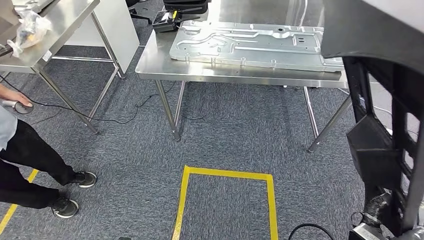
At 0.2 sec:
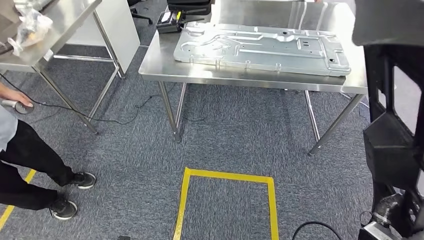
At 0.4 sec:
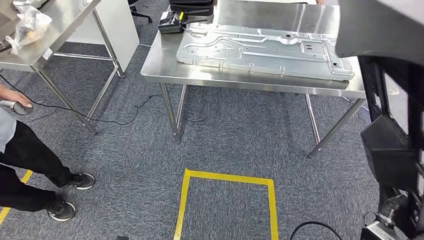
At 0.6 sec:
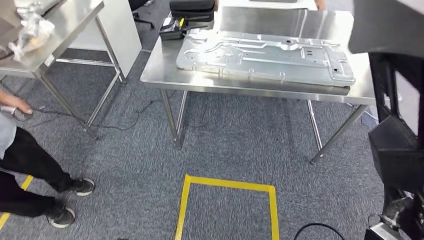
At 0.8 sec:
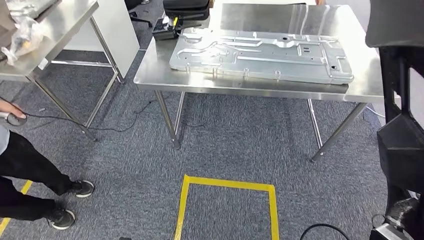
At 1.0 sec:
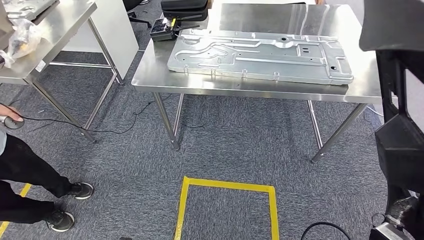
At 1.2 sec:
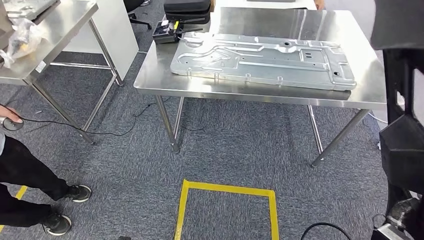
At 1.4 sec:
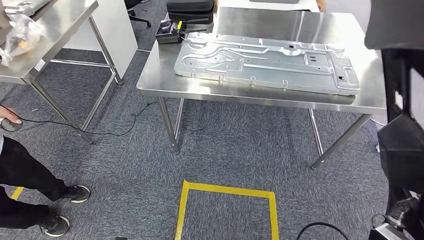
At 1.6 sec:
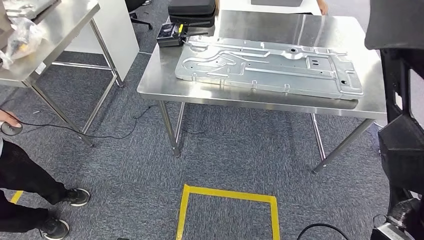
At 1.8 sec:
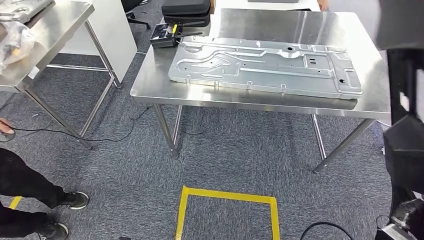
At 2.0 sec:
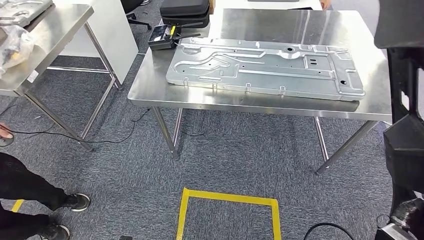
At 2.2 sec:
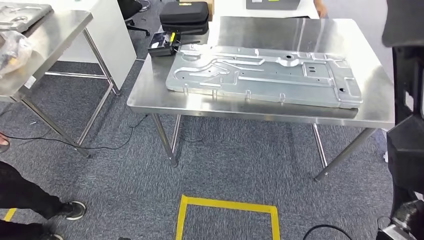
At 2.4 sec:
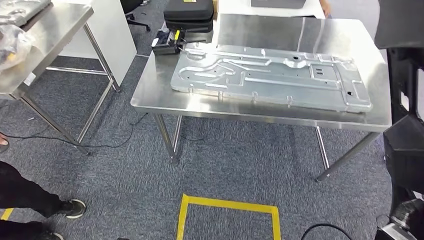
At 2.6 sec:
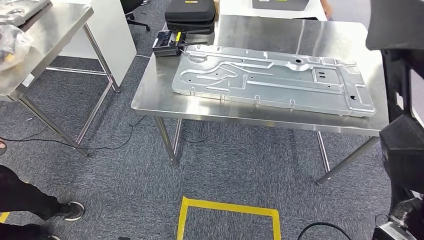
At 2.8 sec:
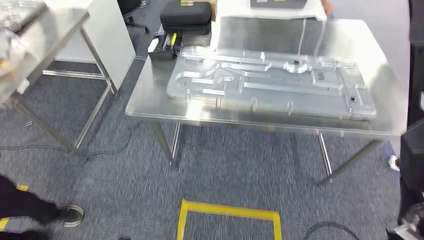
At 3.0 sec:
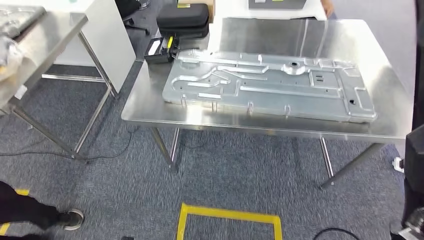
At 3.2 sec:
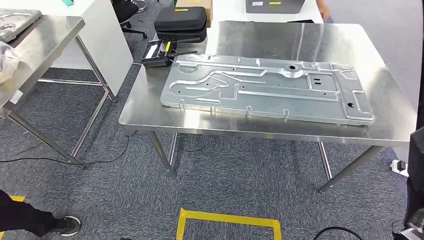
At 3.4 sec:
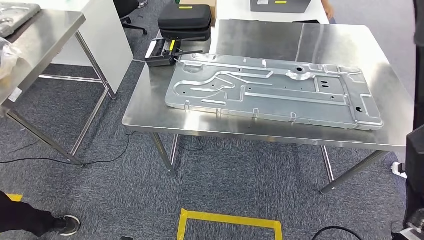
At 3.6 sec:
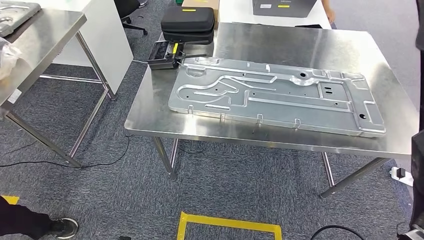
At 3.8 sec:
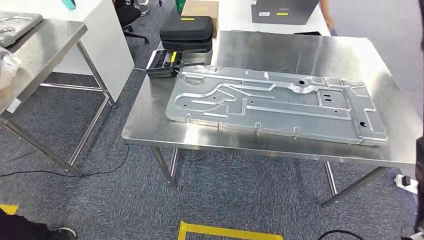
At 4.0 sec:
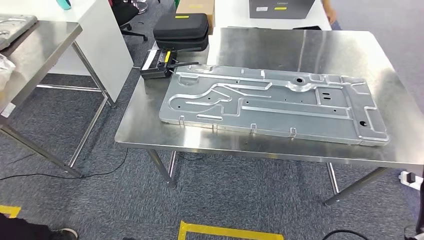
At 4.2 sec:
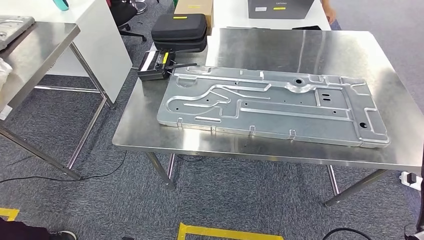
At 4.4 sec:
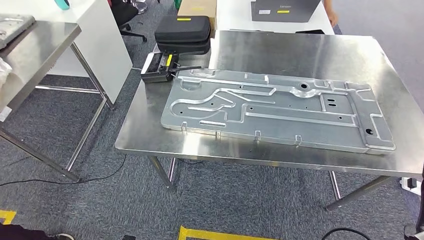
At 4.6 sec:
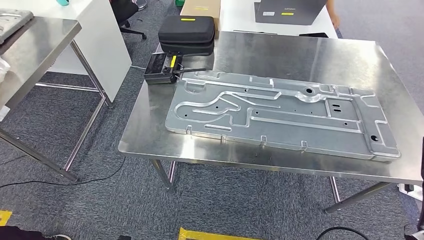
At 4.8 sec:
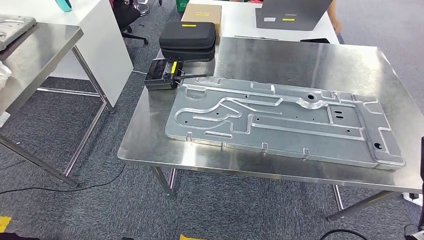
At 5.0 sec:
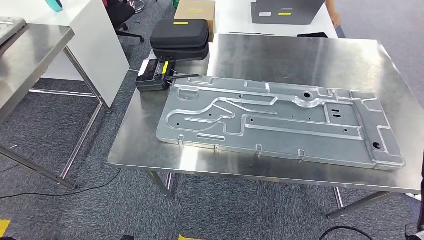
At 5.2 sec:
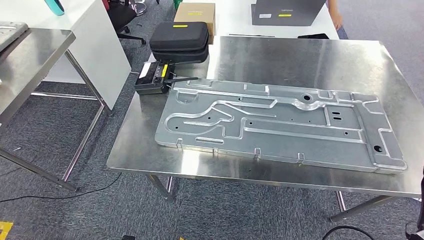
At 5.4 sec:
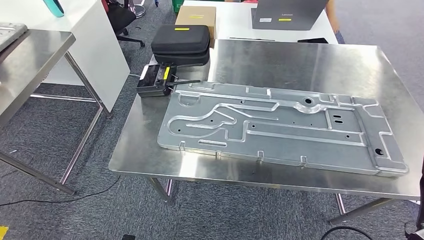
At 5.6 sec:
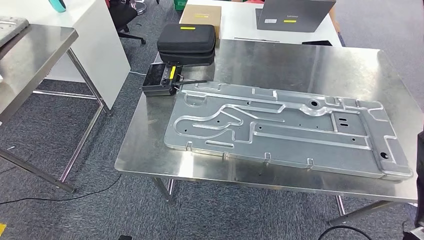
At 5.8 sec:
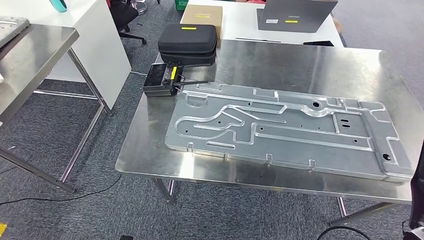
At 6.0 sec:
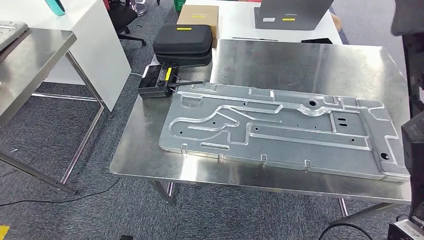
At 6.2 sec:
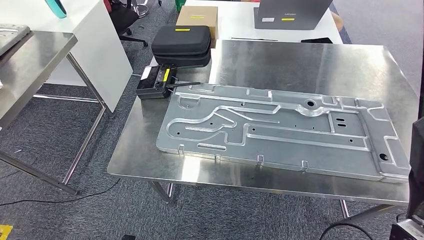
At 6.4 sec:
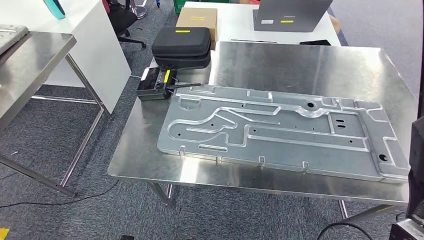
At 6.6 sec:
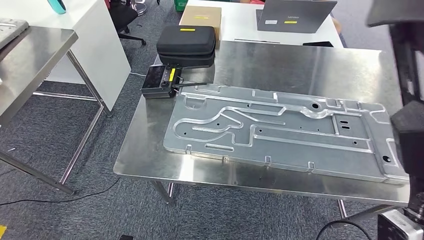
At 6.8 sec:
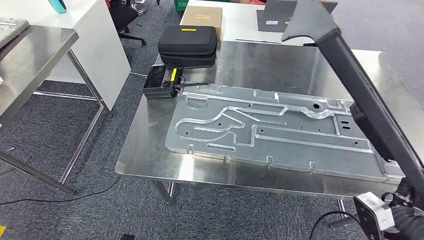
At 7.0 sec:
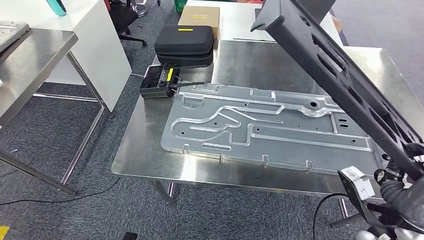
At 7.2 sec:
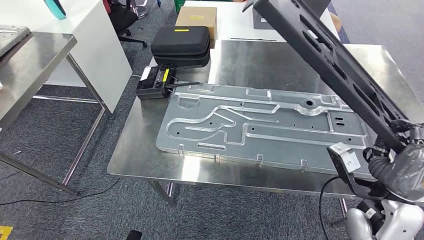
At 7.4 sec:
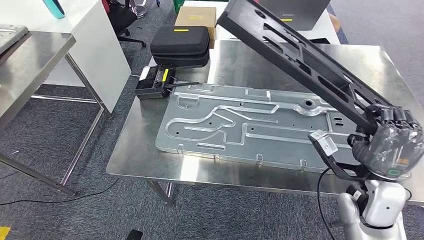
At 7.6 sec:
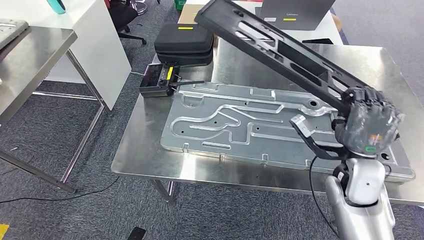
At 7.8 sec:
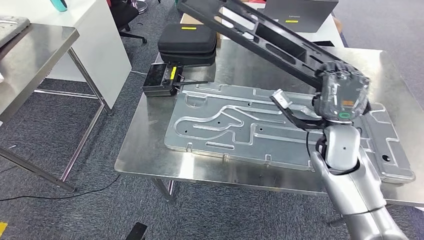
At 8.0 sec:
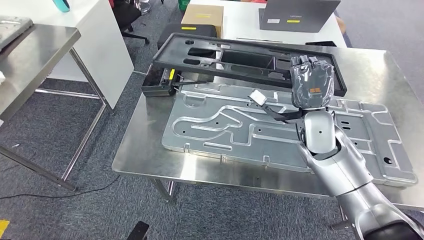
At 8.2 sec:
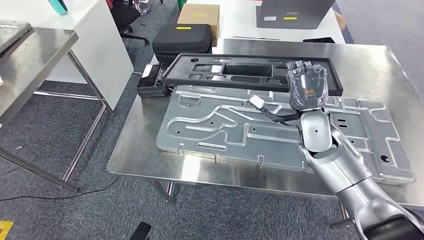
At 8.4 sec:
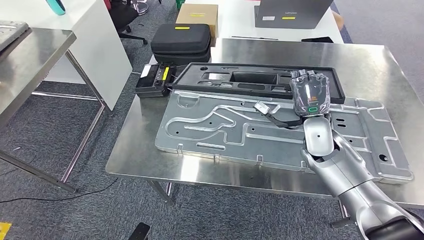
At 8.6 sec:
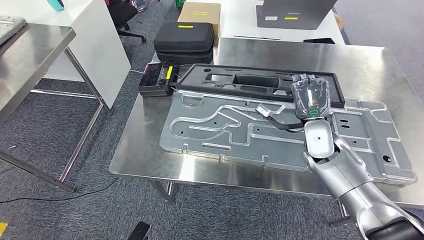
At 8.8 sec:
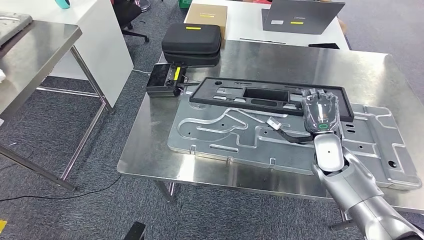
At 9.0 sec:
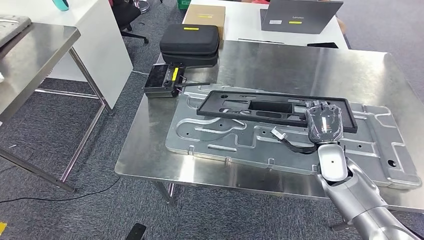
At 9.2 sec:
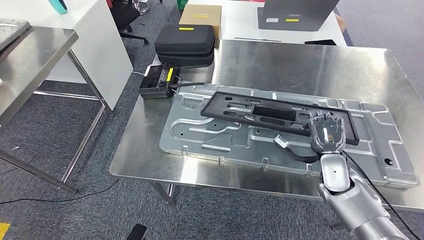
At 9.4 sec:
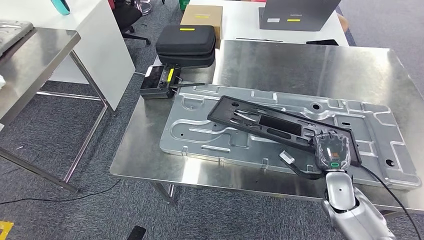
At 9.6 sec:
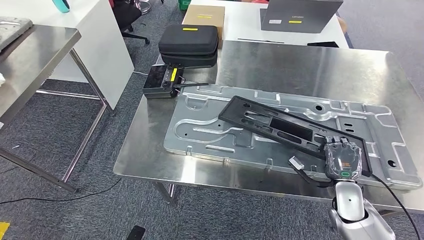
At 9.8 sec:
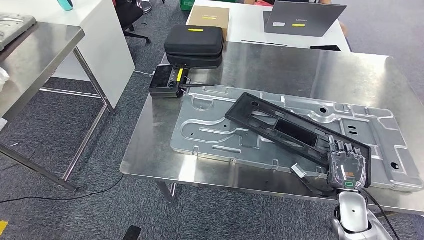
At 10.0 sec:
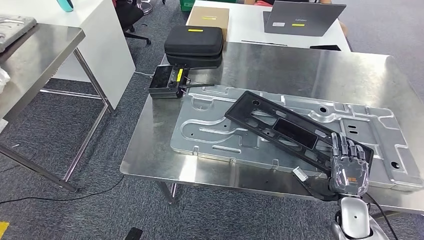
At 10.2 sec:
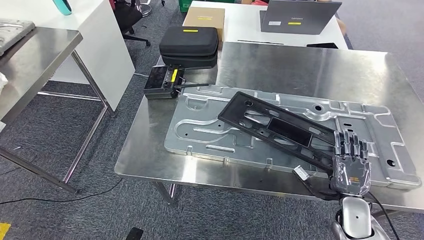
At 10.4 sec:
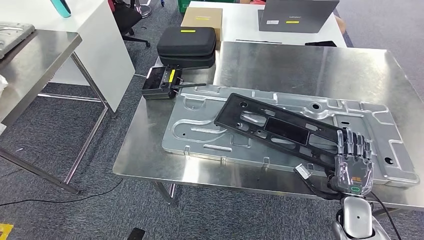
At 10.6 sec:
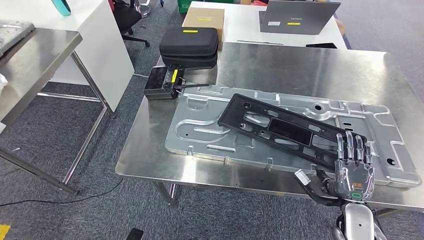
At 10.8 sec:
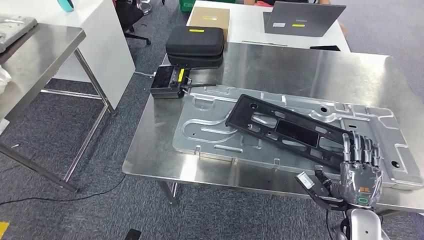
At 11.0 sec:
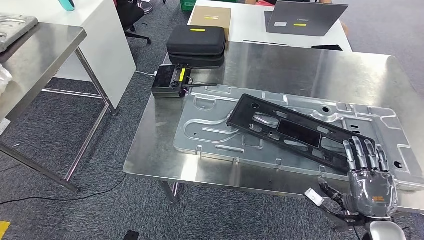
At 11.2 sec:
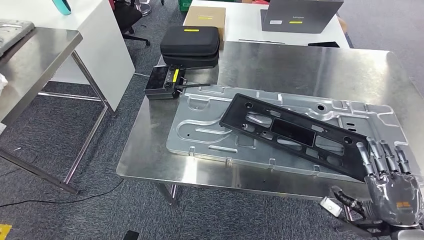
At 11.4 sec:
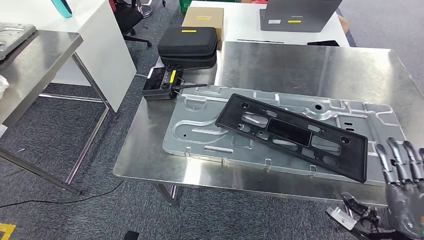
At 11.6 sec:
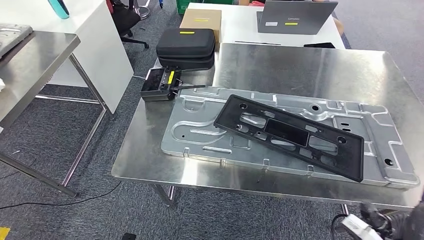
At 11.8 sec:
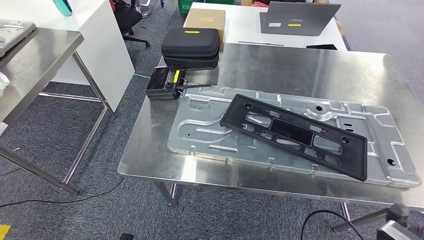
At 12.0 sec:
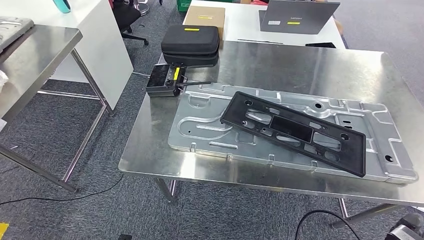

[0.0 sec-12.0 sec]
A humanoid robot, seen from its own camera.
Step, 0.0 sec to 3.0 sec: Move the large material to the workbench.
Step, 5.2 sec to 11.4 sec: Insert the large material into the corresponding slot on the workbench.

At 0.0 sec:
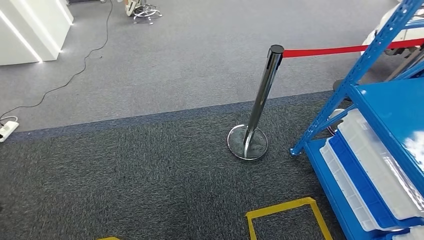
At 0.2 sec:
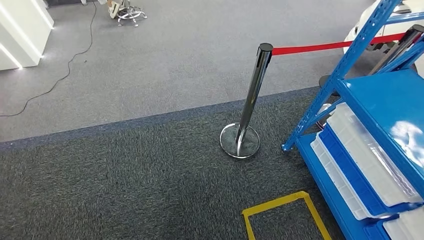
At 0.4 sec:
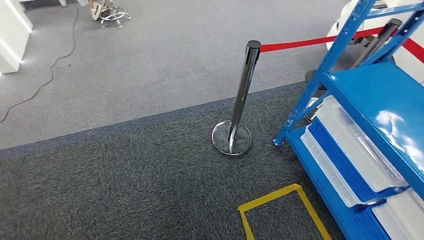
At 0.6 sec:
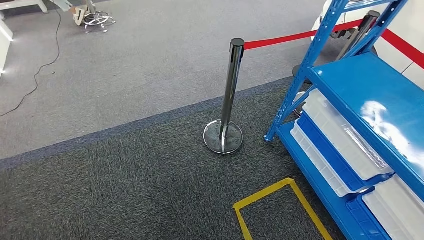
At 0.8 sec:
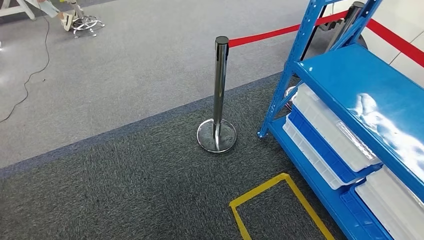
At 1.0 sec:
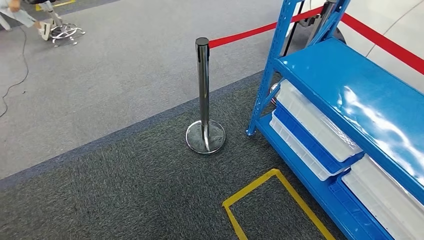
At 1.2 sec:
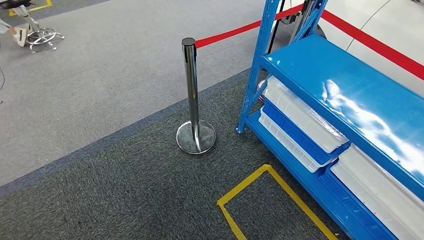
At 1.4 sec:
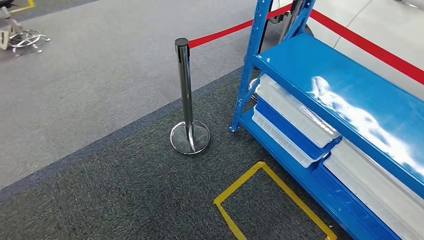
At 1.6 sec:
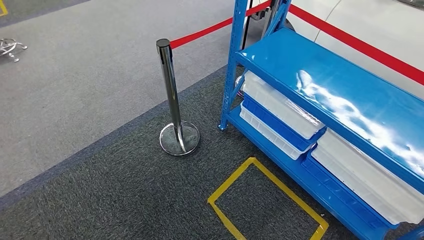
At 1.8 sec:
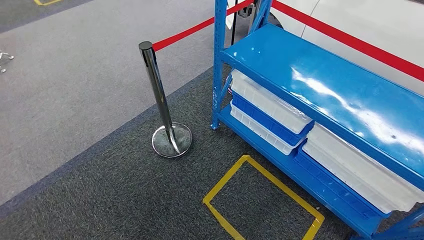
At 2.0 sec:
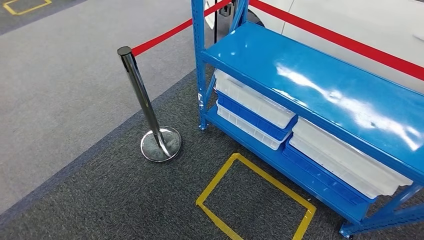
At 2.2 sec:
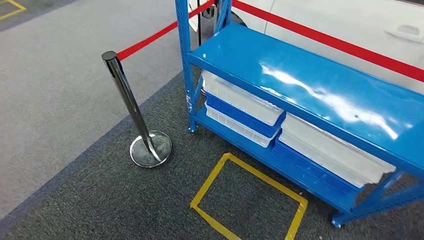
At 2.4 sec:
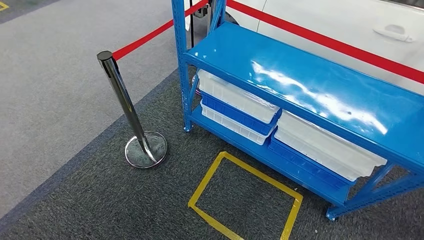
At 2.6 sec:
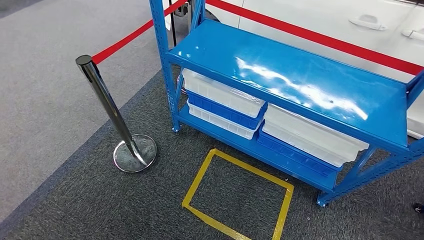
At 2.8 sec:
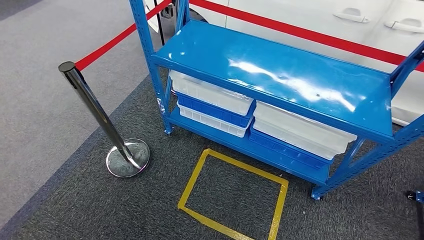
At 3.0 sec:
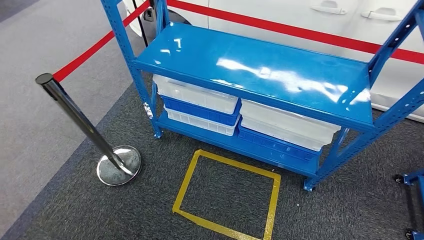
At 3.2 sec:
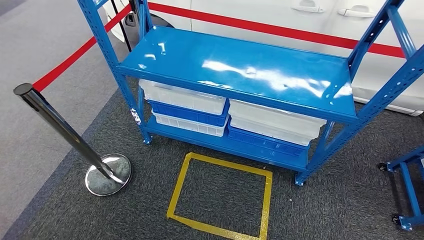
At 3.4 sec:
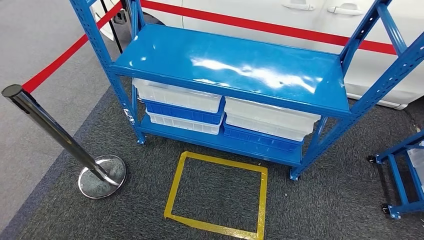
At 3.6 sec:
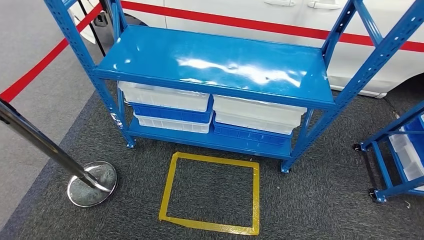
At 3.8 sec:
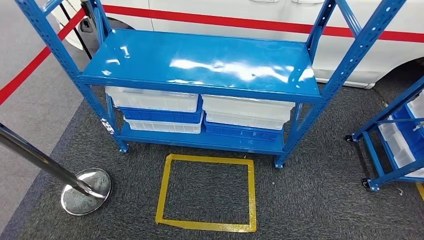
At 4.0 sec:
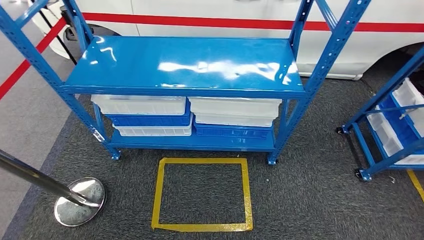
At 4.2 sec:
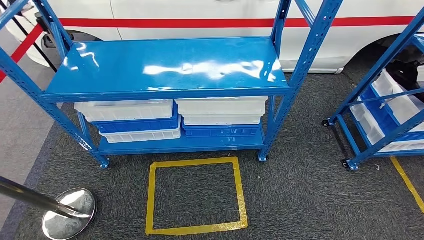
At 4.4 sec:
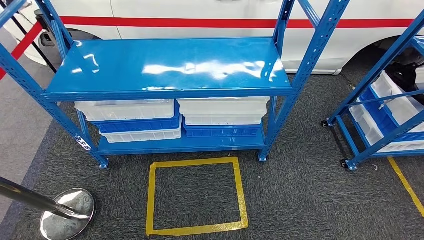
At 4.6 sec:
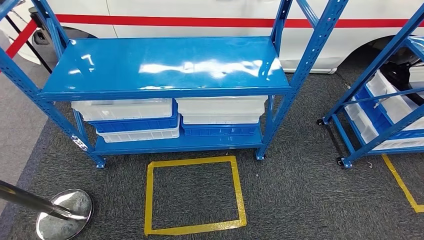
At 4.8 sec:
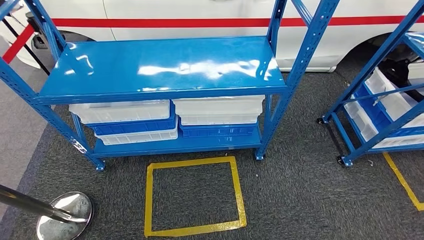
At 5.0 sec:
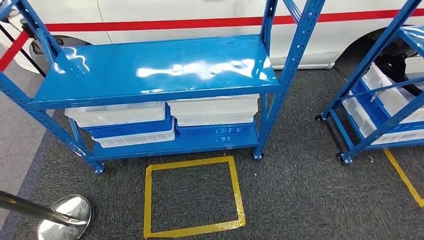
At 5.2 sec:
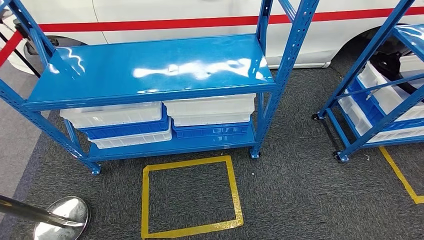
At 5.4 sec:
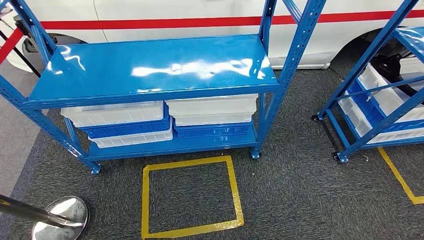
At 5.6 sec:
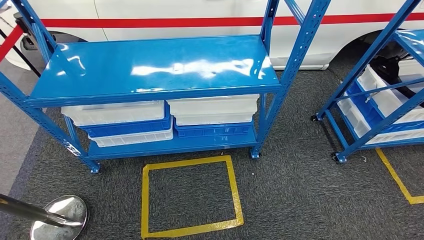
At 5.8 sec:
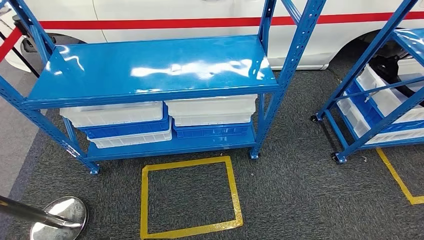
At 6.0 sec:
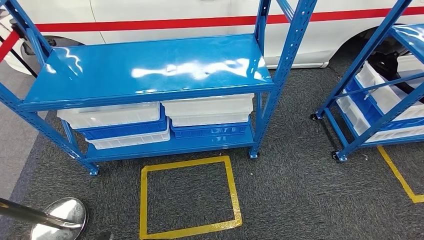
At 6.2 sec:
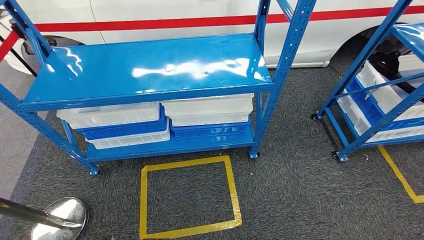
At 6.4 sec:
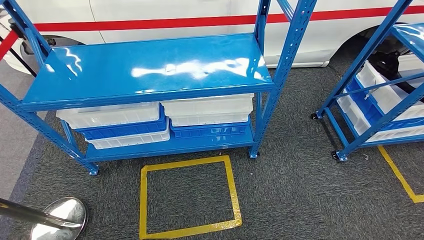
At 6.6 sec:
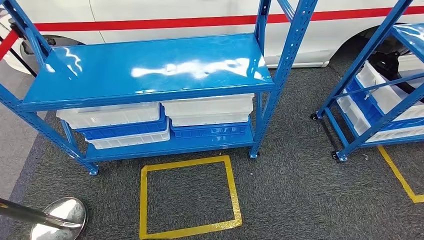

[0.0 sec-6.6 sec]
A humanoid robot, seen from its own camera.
Step, 0.0 sec to 6.4 sec: Move to the initial position of the shelf.
